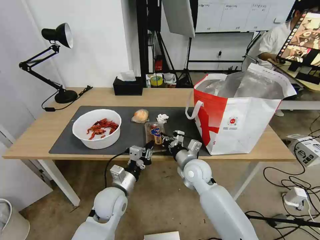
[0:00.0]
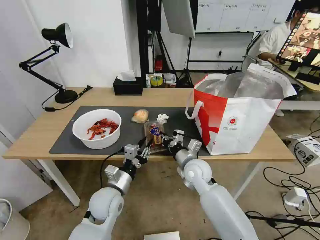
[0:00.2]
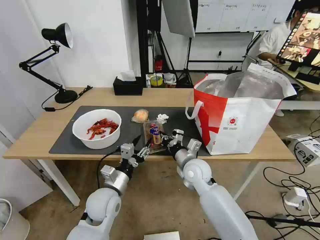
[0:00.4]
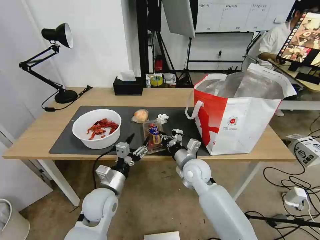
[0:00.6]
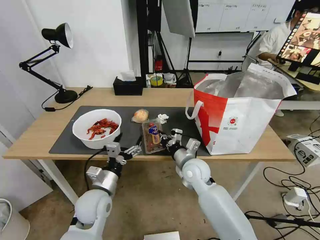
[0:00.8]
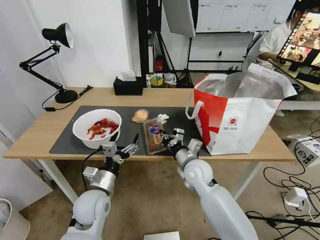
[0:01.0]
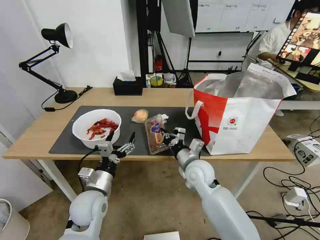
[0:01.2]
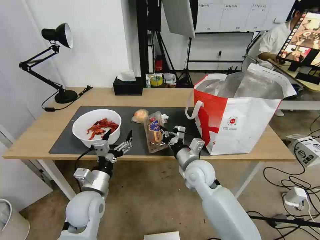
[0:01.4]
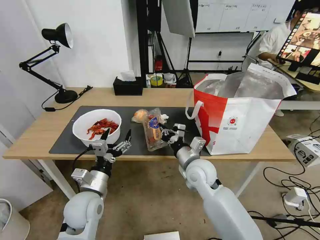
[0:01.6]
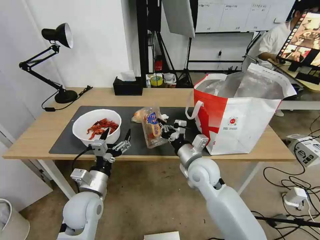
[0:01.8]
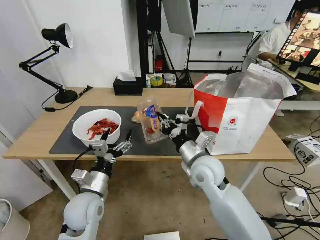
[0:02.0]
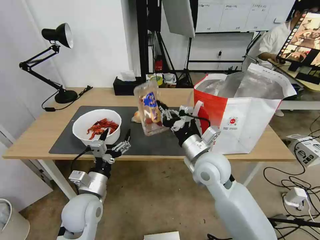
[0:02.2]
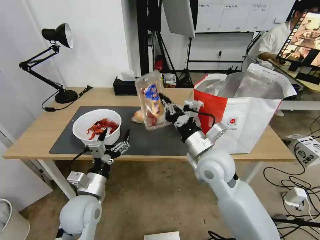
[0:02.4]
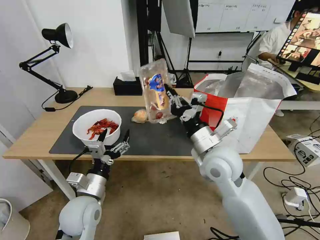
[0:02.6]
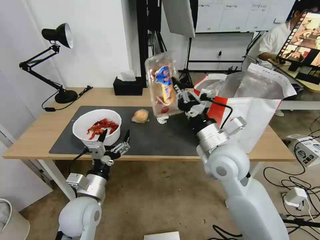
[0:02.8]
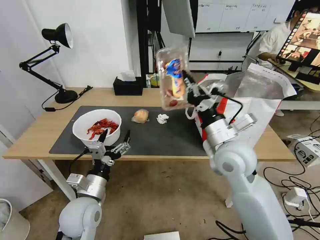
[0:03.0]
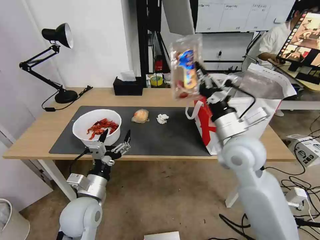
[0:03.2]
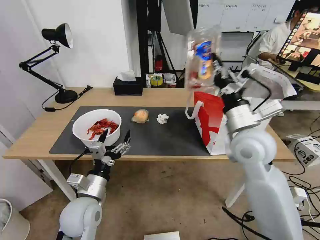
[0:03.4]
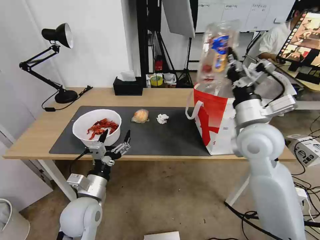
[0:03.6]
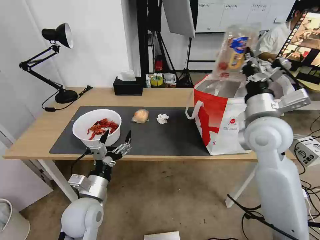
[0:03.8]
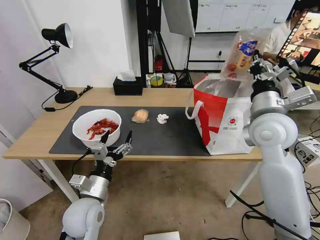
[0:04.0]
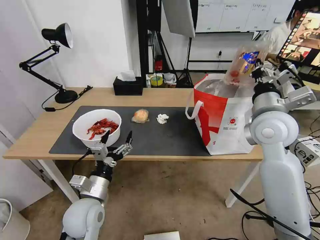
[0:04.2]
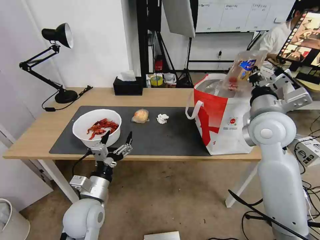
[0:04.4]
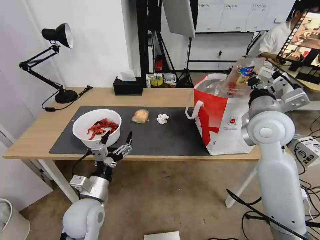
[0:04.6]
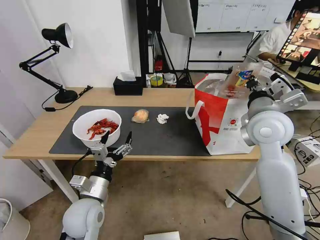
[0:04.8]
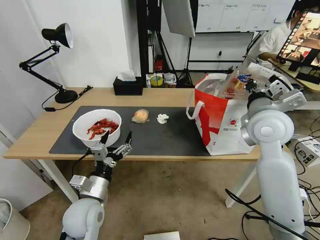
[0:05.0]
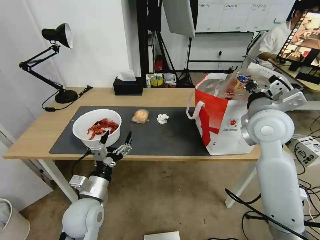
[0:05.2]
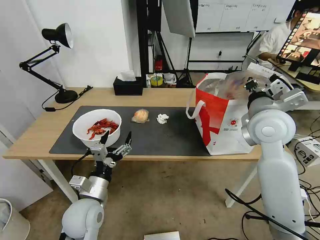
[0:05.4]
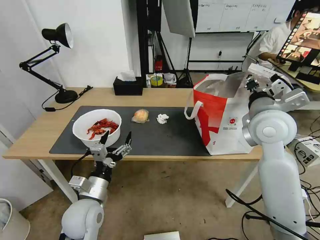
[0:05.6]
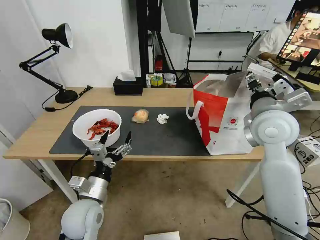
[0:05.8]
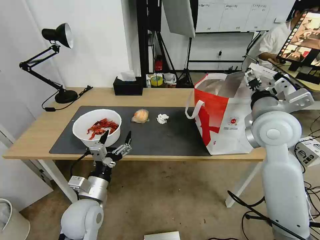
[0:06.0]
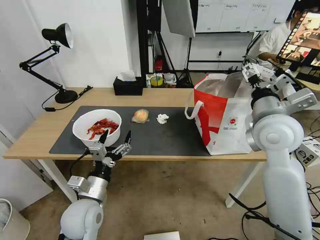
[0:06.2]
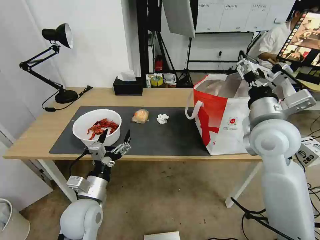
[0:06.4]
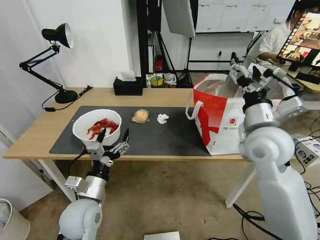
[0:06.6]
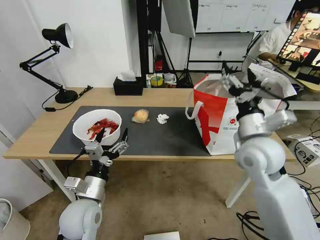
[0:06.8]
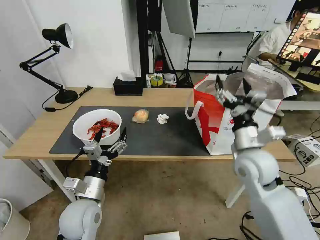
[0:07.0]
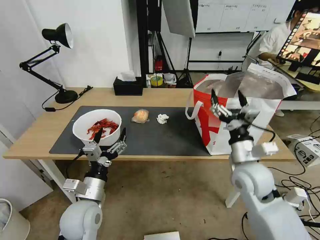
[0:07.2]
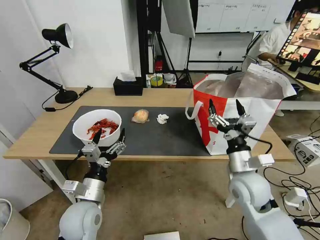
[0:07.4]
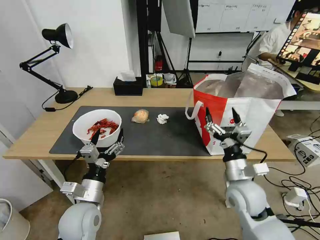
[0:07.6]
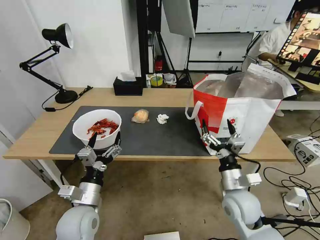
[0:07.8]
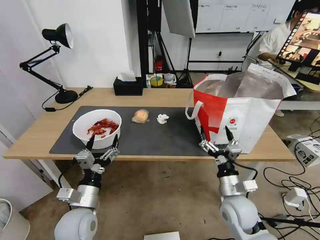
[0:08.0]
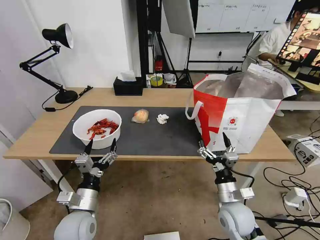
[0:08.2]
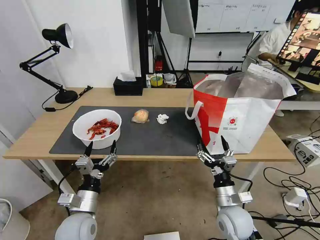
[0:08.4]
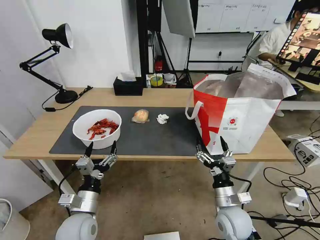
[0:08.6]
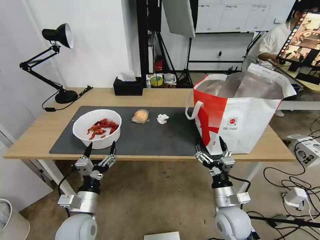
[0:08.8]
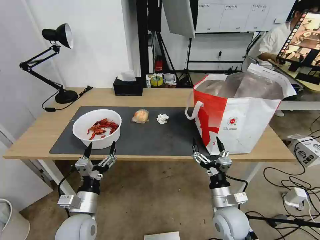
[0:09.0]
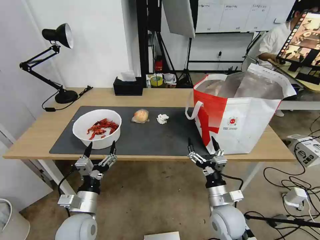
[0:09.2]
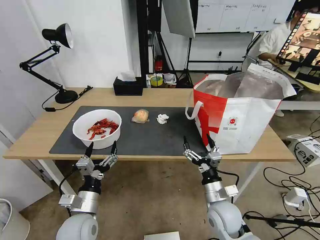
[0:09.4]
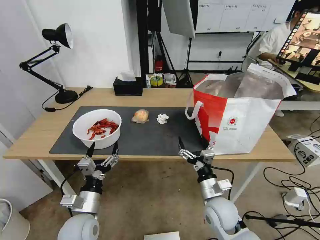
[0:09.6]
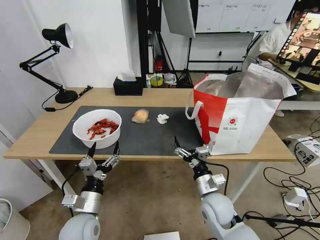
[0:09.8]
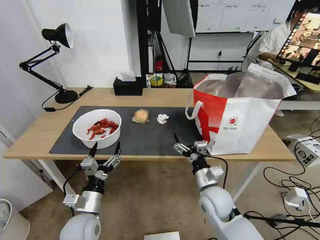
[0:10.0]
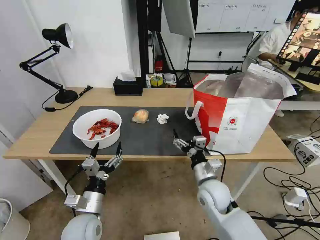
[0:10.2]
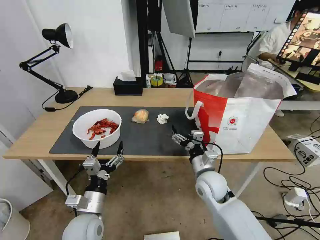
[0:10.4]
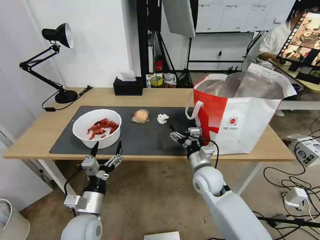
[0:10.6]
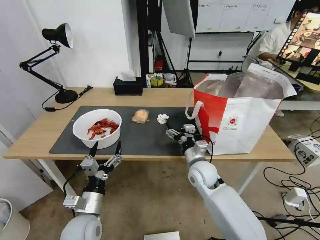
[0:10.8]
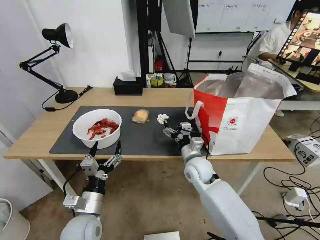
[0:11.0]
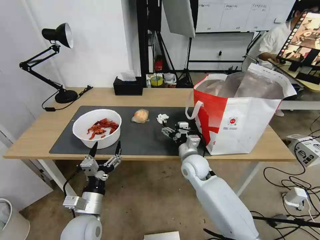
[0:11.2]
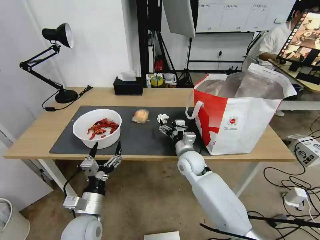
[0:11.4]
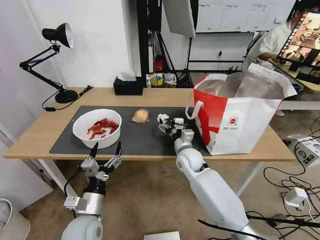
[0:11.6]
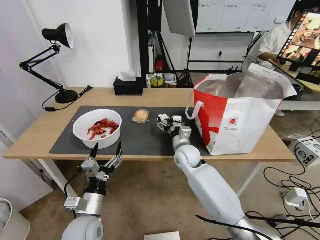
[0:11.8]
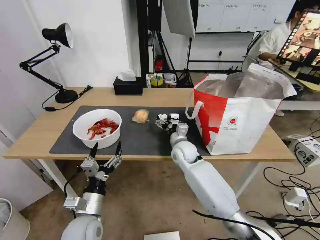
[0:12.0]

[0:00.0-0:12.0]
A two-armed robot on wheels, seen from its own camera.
Task of the whole recording: Pick up the trash from the table and place it into the takeout bag.
0:00.0 to 0:01.6: The left gripper goes approximately 5 cm to the left, and opens its fingers.
0:01.6 to 0:03.0: The right gripper shifts some 15 cm upward and to the right.
0:03.0 to 0:04.4: The right gripper is displaced to the right and upward by some 10 cm.
0:04.4 to 0:06.0: The right gripper opens up.
0:06.0 to 0:07.6: The right gripper is displaced downward and backward by approximately 20 cm.
0:07.6 to 0:09.0: The right gripper moves downward, some 10 cm. Meanwhile the left gripper shifts by roughly 5 cm.
0:09.0 to 0:10.4: The right gripper is displaced forward and upward by some 10 cm.
0:10.4 to 0:12.0: The right gripper is displaced forward and to the left by roughly 15 cm.

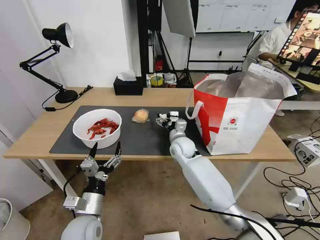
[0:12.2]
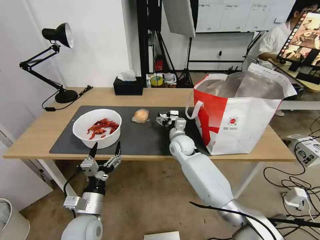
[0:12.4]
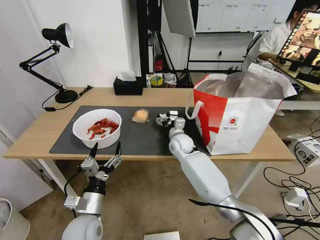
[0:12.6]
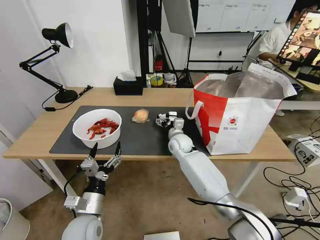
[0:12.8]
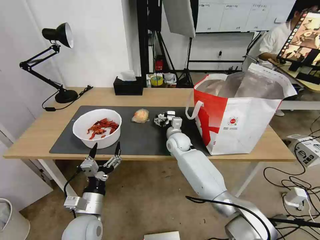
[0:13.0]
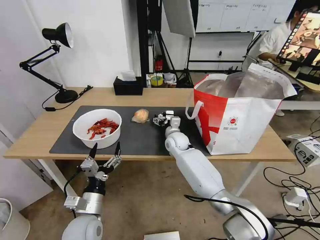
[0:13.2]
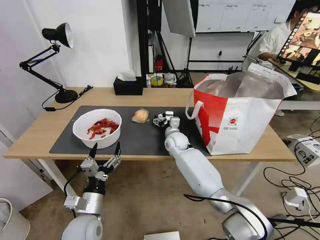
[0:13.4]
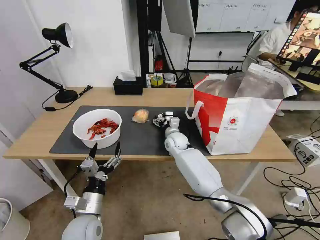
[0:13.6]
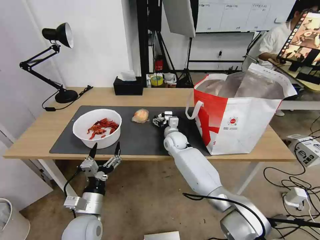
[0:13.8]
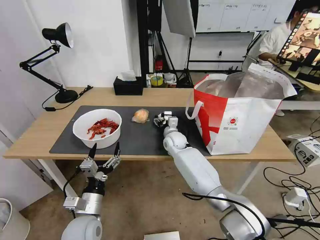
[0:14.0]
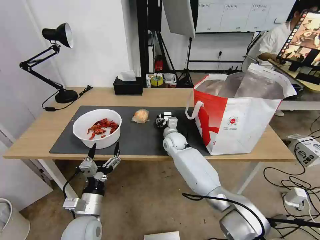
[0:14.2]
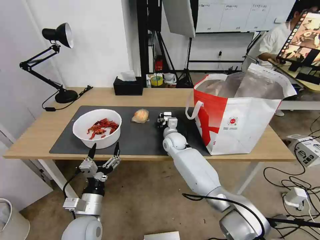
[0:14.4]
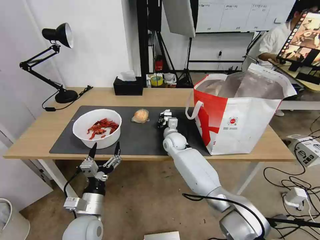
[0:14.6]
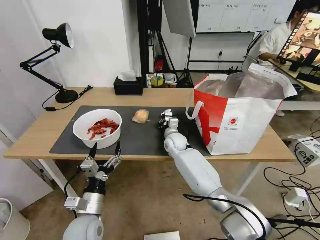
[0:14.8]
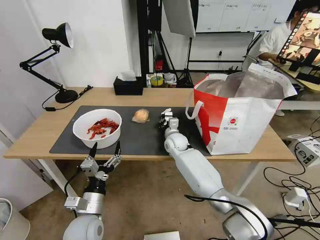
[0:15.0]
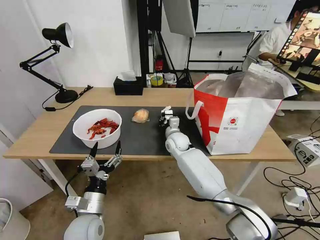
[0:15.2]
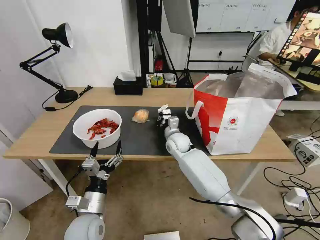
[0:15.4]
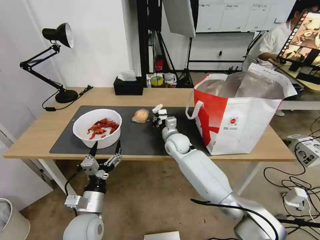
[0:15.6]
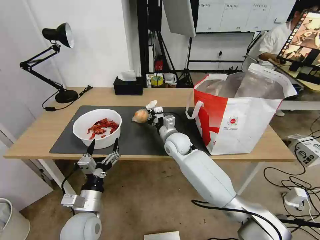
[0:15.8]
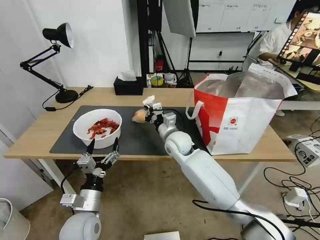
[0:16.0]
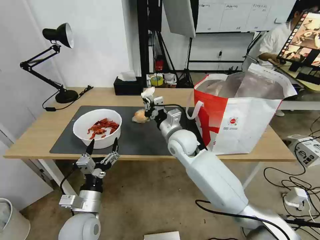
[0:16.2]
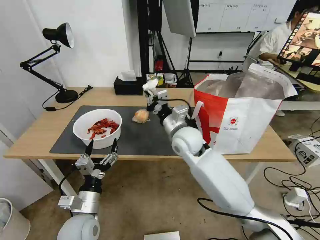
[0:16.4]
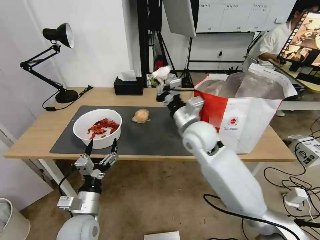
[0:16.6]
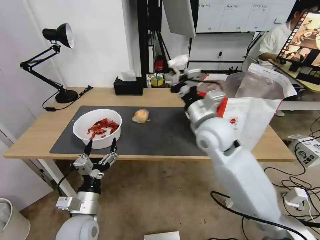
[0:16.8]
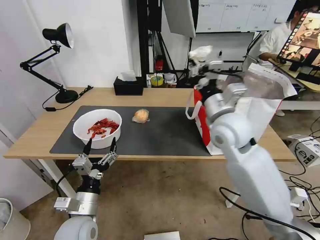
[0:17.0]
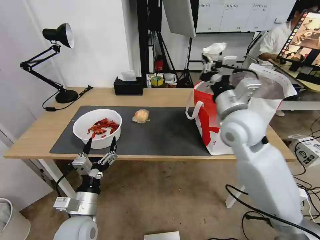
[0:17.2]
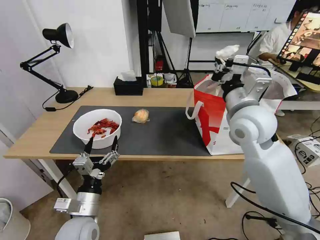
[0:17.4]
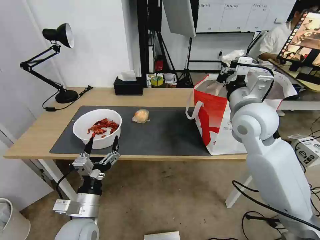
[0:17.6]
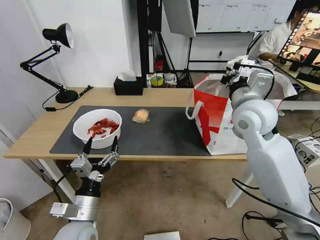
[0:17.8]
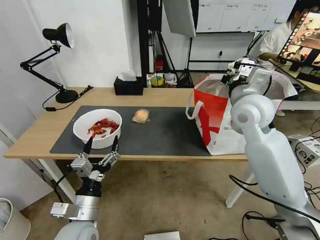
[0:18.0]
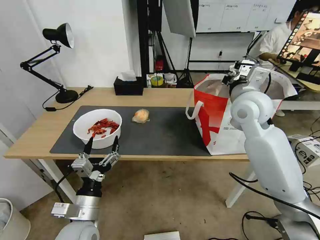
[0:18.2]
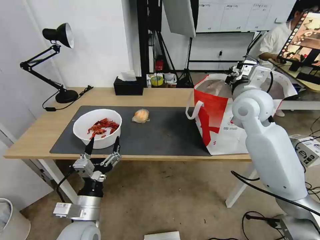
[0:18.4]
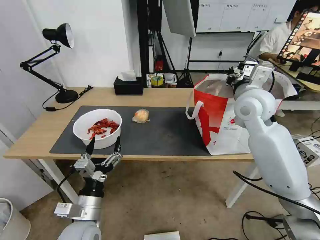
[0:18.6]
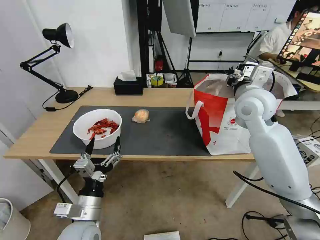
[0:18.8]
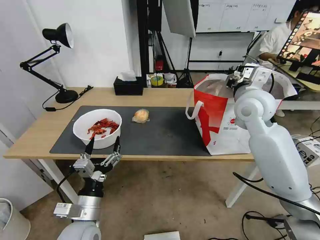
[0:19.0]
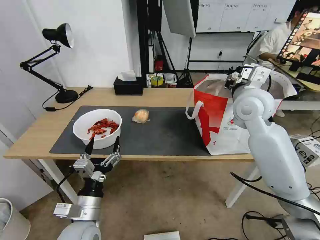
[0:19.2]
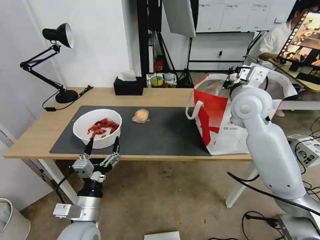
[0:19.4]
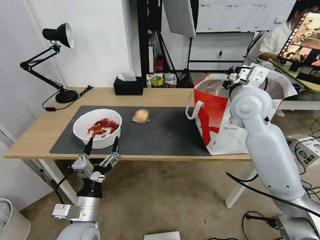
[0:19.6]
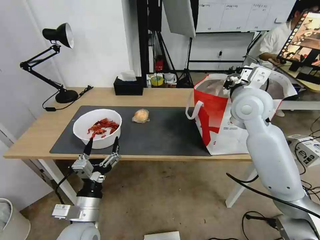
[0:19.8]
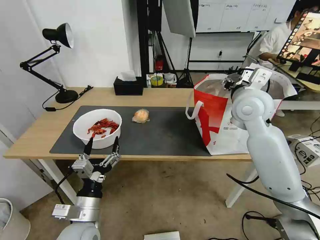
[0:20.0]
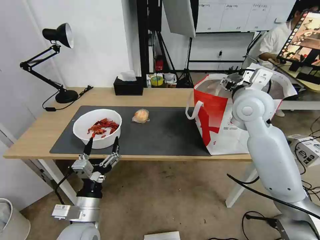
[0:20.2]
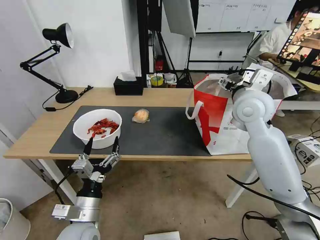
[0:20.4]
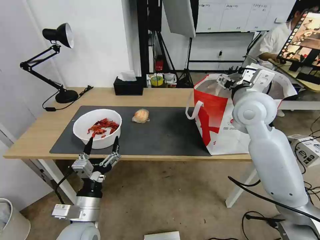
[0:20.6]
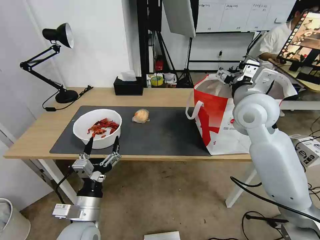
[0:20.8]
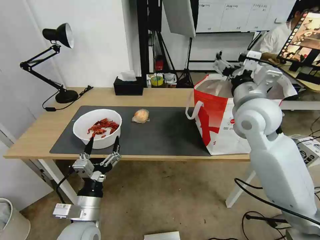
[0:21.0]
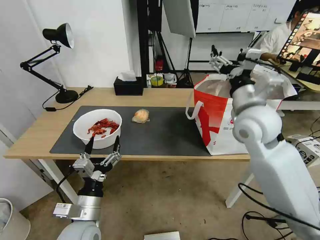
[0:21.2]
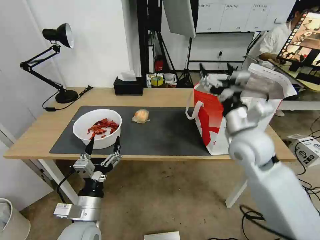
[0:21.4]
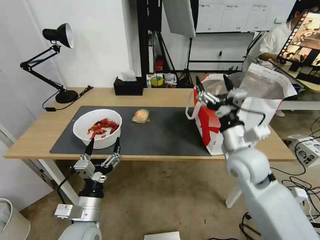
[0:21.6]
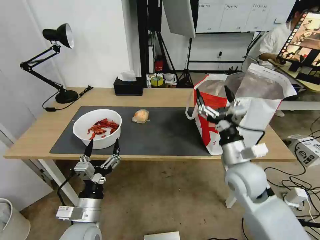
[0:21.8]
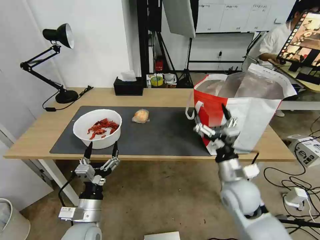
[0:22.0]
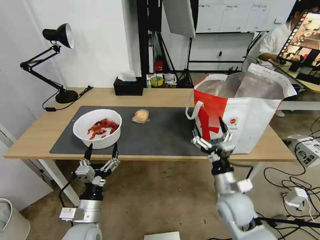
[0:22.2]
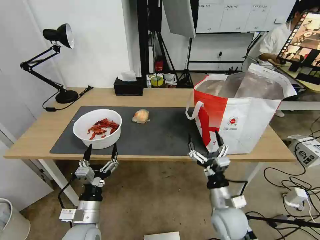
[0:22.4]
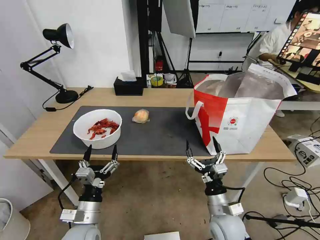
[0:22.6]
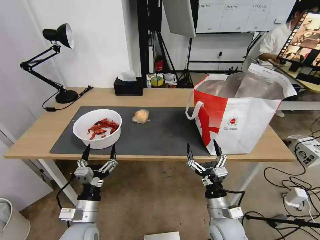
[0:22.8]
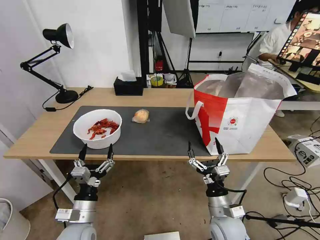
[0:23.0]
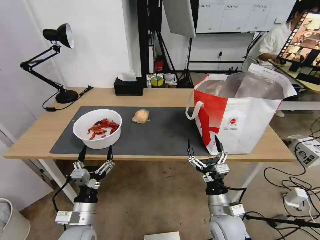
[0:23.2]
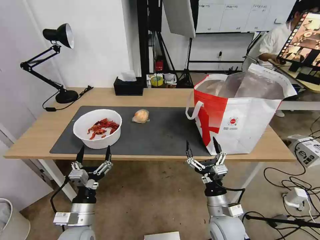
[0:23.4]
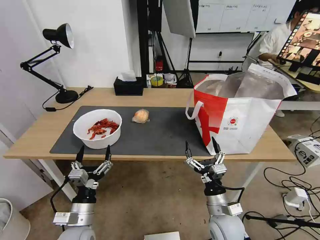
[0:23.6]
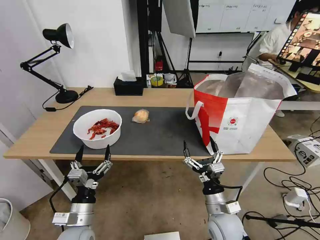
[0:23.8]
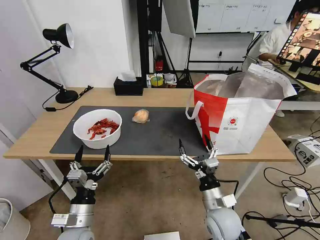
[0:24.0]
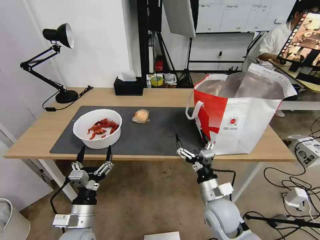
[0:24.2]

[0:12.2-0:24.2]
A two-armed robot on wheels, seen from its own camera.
Task of the whole recording: Pick up the trash from the table and place it into the takeout bag.
0:12.2 to 0:13.8: The right gripper goes roughly 5 cm forward.
0:13.8 to 0:15.2: The right gripper closes.
0:15.2 to 0:16.6: The right gripper shifts roughly 20 cm upward and backward.
0:16.6 to 0:18.2: The right gripper moves to the right and upward, approximately 15 cm.
0:18.2 to 0:19.8: The right gripper opens its fingers.
0:19.8 to 0:21.2: The right gripper travels backward by approximately 5 cm, and opens.
0:21.2 to 0:22.6: The right gripper shifts some 30 cm downward and backward, while the left gripper moves downward, some 5 cm.
0:22.6 to 0:24.2: The grippers move only a little.
